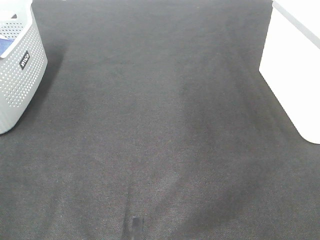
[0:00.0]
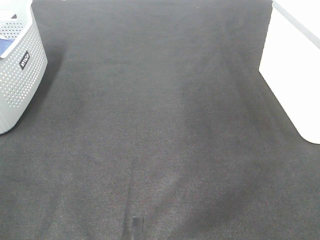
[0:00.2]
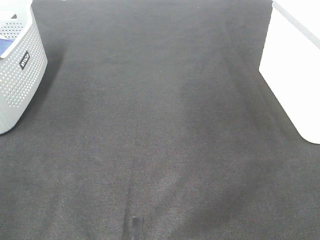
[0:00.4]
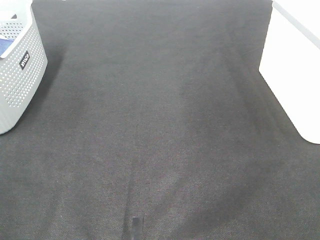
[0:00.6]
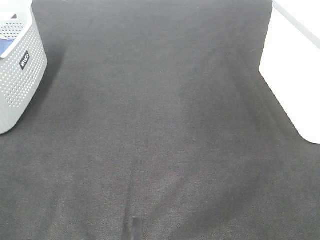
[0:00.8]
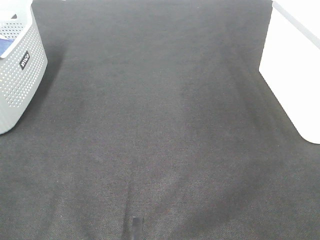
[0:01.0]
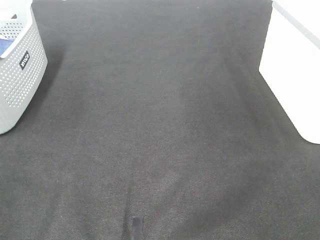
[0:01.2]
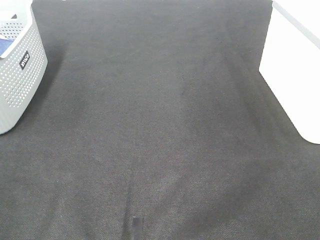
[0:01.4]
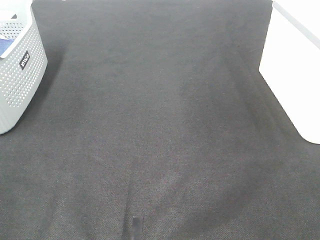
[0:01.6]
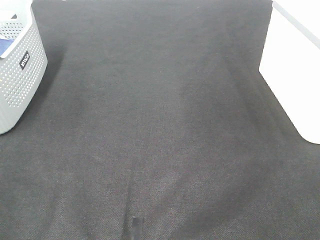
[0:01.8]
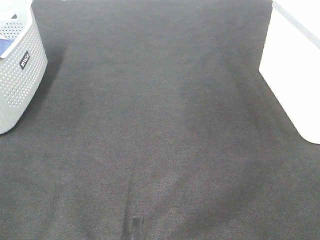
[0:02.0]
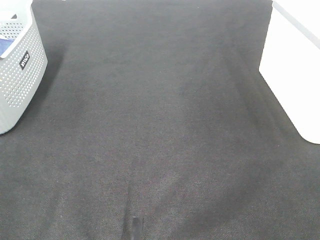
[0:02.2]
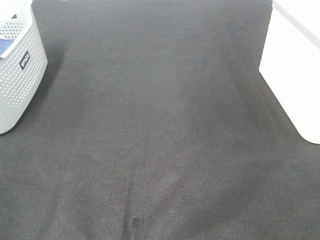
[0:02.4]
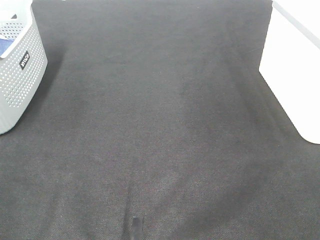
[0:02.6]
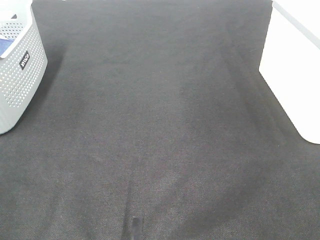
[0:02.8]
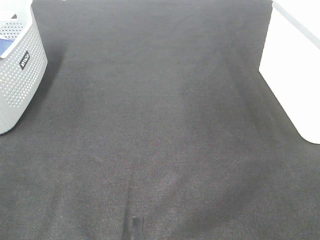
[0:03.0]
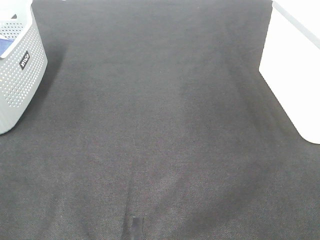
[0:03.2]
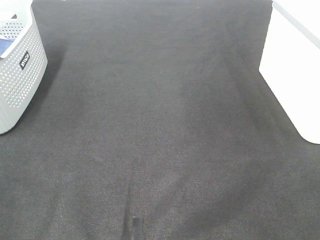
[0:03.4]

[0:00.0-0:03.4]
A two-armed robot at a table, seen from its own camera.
0:01.6 to 0:03.4: The two grippers keep their place.

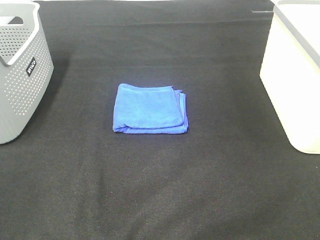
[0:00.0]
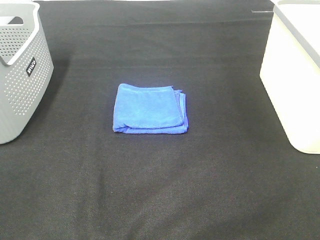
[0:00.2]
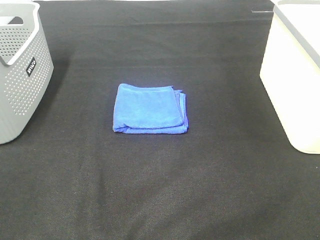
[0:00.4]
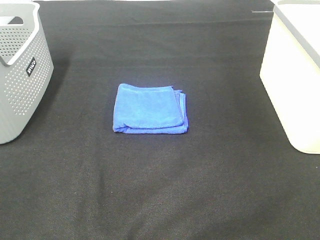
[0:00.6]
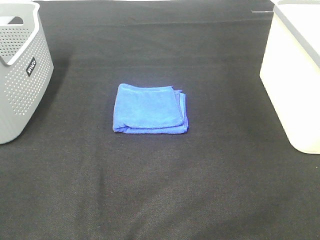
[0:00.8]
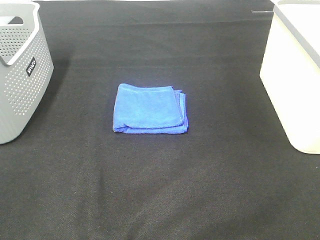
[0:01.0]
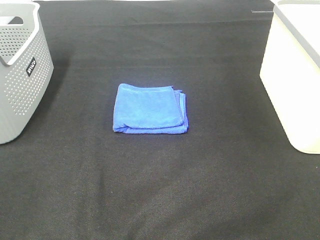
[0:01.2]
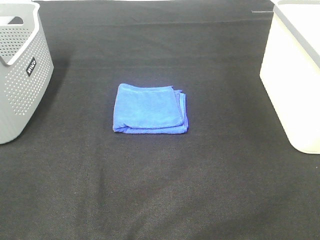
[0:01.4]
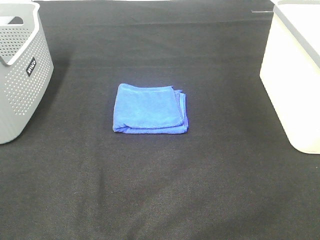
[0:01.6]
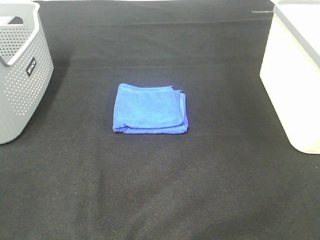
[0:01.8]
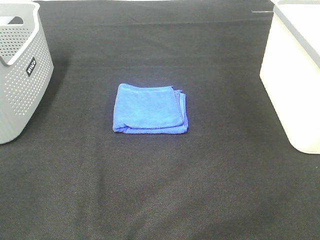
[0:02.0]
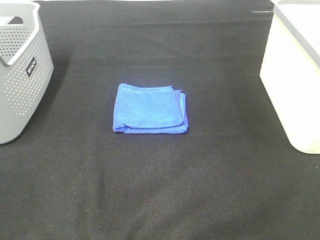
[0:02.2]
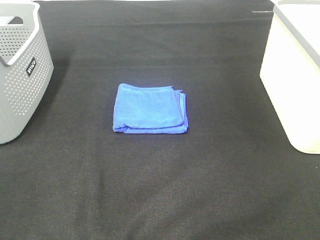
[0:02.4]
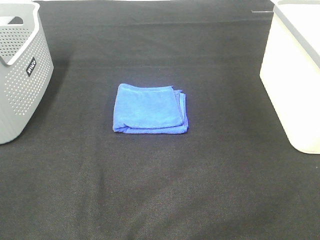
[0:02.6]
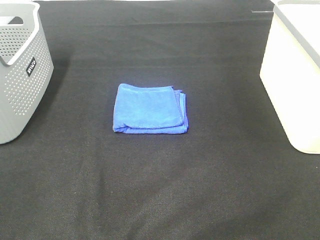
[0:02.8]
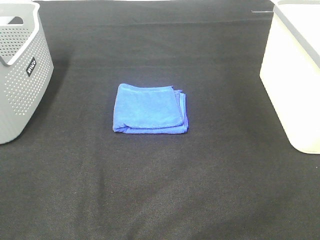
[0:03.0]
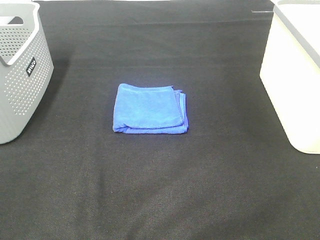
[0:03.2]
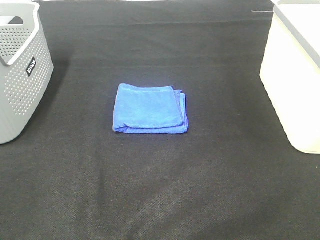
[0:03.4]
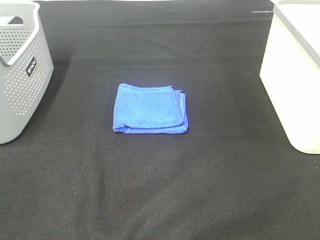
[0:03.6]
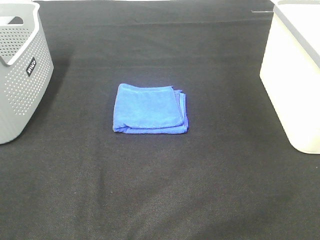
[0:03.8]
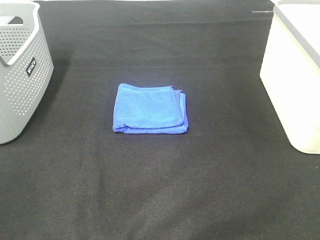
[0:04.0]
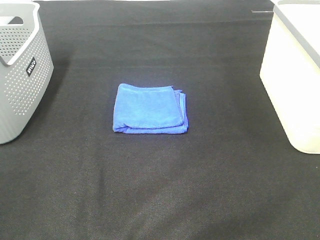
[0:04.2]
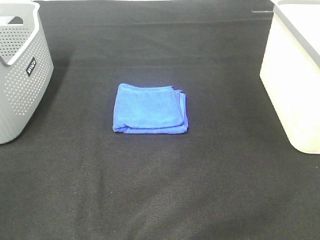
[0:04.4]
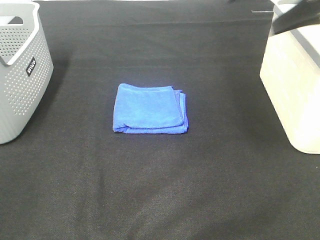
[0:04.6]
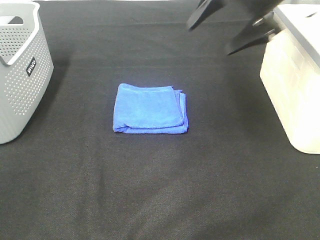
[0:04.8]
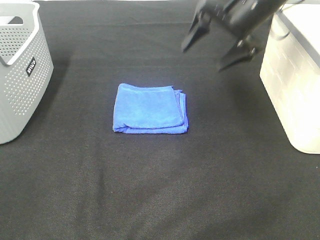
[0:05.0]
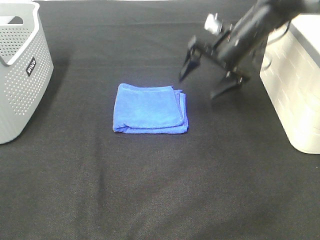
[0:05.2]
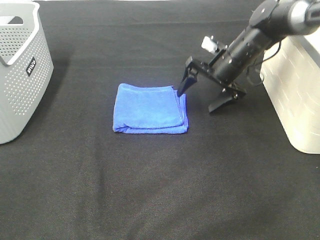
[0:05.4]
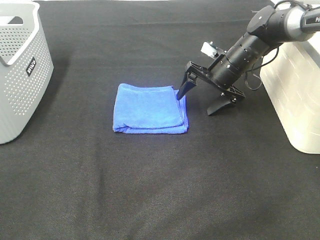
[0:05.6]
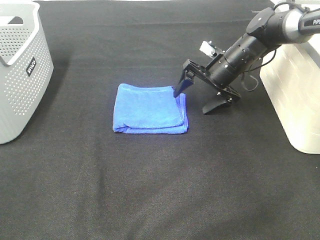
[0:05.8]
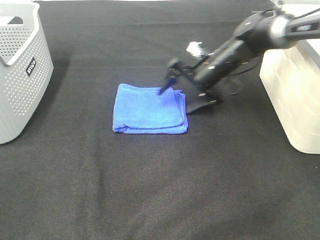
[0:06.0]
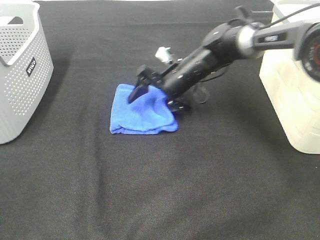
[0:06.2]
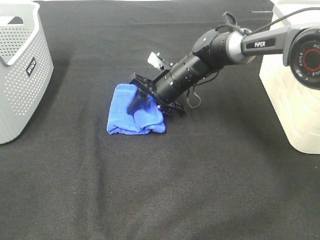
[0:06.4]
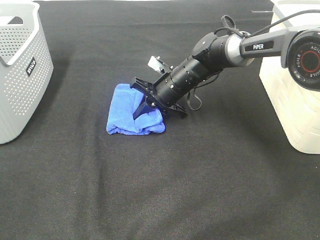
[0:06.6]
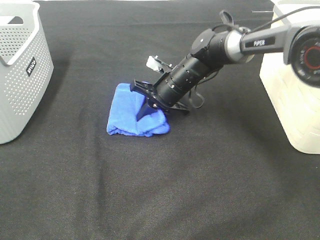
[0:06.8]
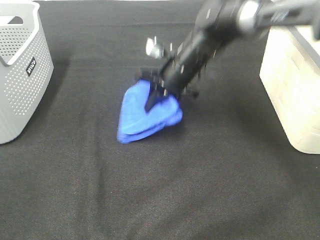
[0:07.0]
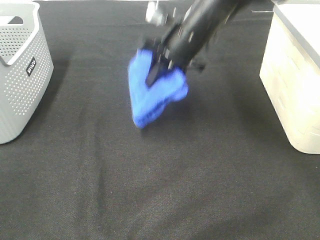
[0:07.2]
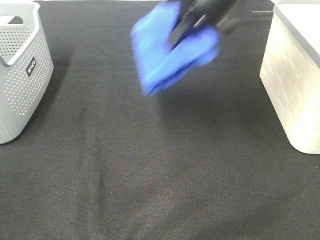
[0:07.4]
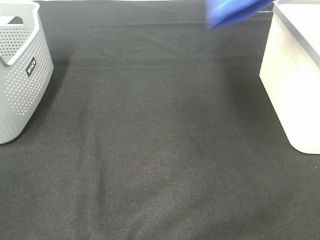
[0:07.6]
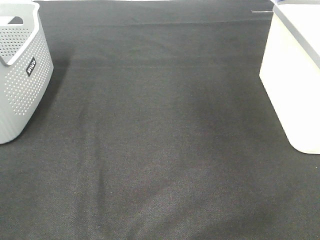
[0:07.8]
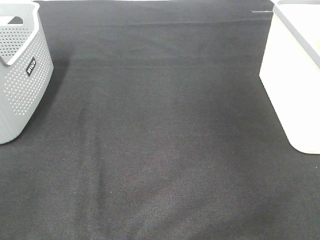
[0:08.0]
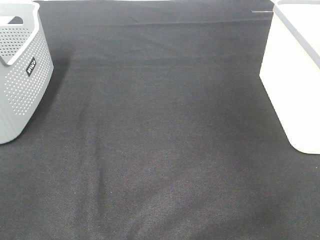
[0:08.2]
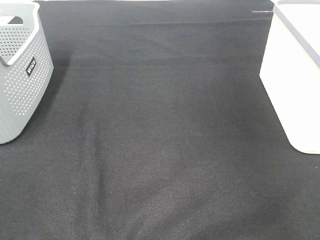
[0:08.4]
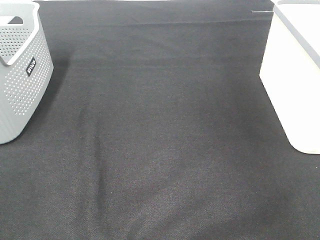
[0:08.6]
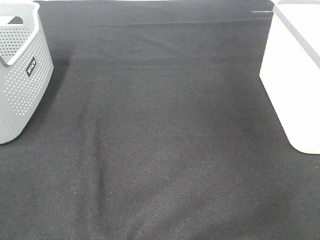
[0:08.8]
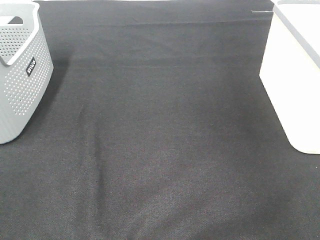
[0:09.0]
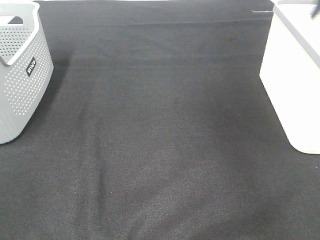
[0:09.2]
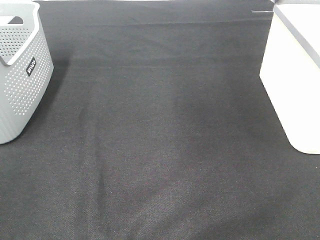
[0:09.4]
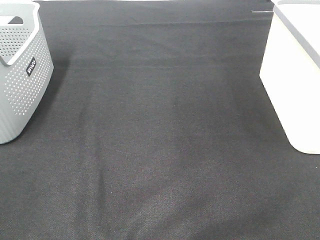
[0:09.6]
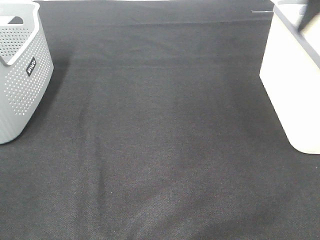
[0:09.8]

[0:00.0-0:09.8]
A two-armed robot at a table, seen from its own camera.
Step, 0:00.0 to 0:06.6: Right hand: grab the folded blue towel.
Step, 0:06.8 to 0:08.8: Right hand: place the blue towel in right basket.
0:00.0 to 0:02.8: Both grippers stay put.
0:04.2 to 0:05.6: The right gripper shifts some 40 cm downward and forward.
0:05.6 to 0:07.0: The right gripper is displaced to the left by some 10 cm, and closes.
0:07.0 to 0:08.4: The right gripper moves to the right and upward, roughly 40 cm.
0:08.4 to 0:09.8: The right gripper goes some 20 cm backward and to the left, and opens up.

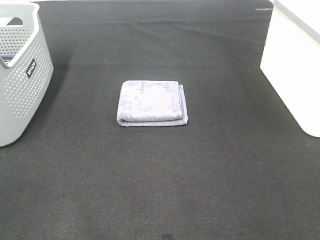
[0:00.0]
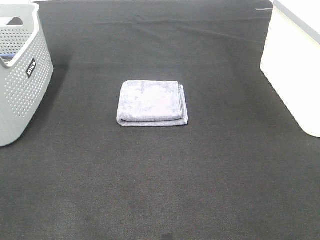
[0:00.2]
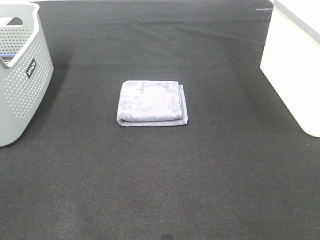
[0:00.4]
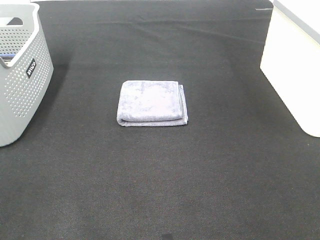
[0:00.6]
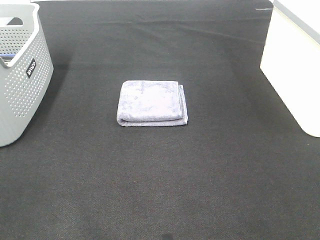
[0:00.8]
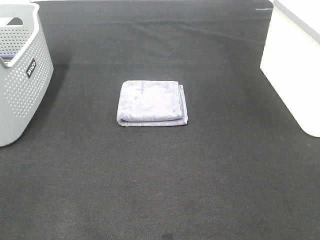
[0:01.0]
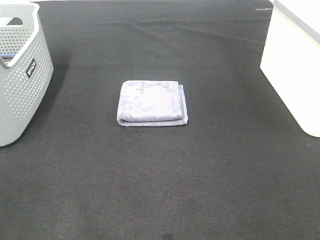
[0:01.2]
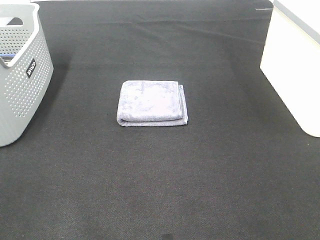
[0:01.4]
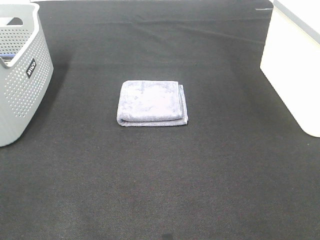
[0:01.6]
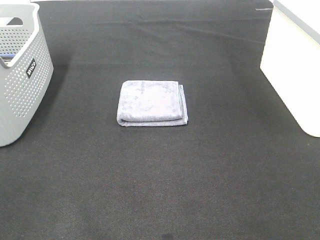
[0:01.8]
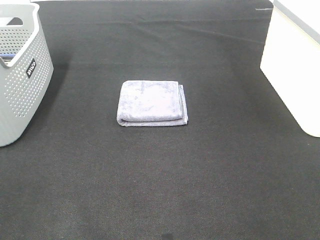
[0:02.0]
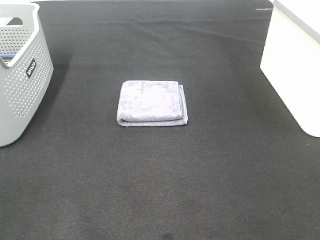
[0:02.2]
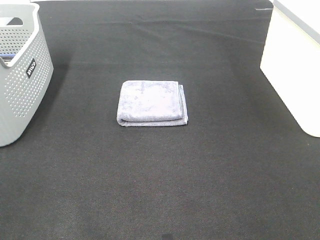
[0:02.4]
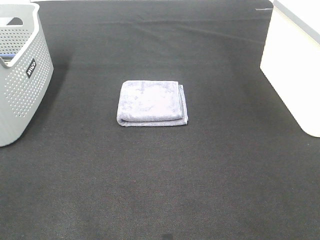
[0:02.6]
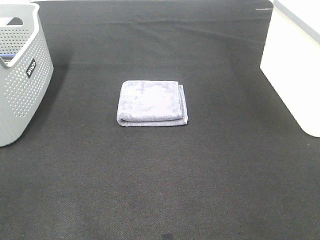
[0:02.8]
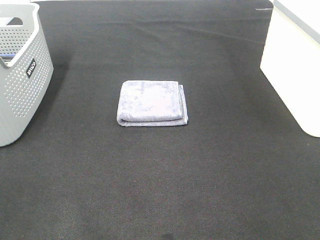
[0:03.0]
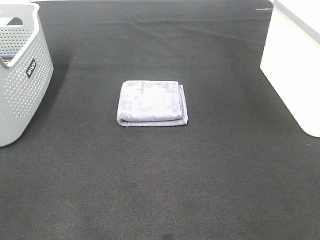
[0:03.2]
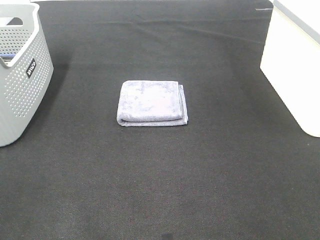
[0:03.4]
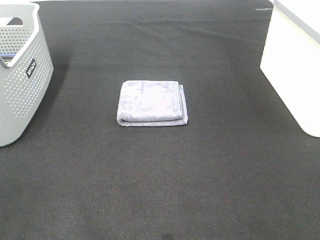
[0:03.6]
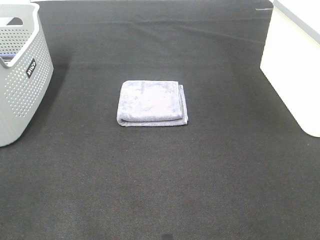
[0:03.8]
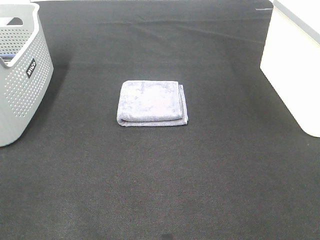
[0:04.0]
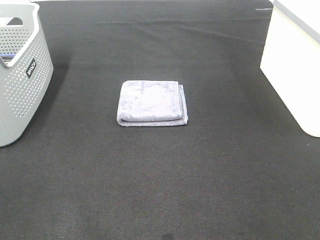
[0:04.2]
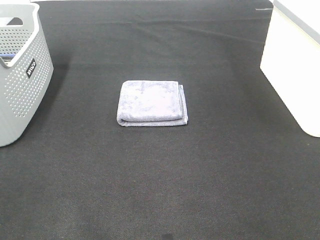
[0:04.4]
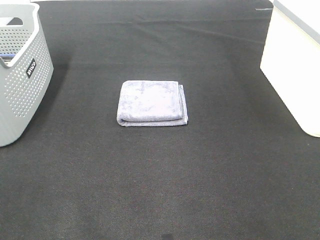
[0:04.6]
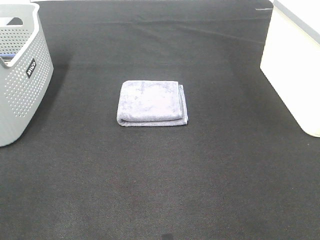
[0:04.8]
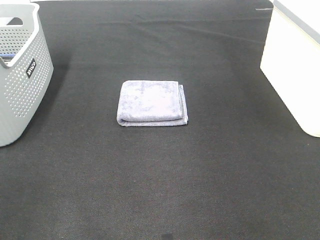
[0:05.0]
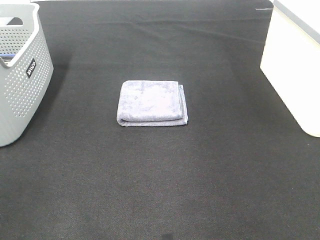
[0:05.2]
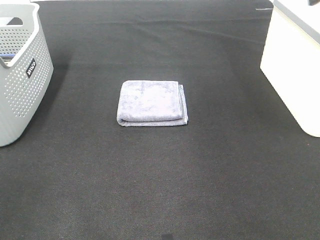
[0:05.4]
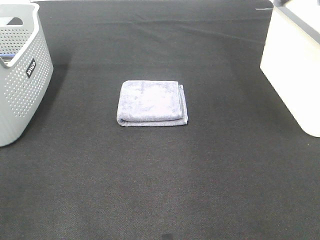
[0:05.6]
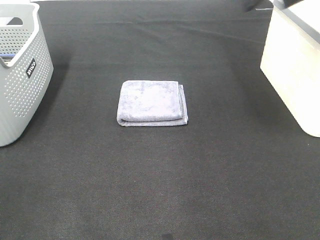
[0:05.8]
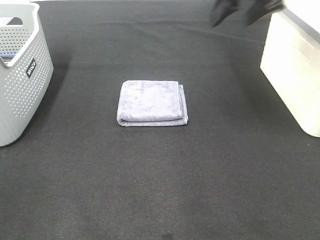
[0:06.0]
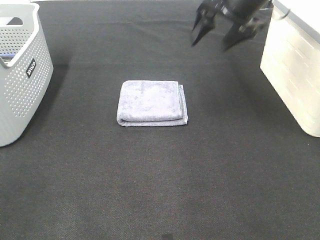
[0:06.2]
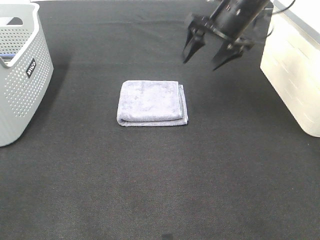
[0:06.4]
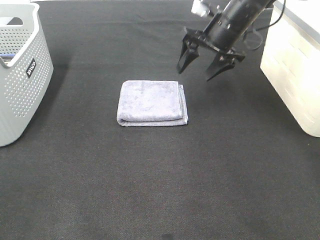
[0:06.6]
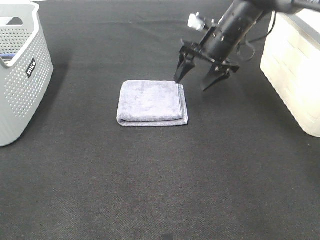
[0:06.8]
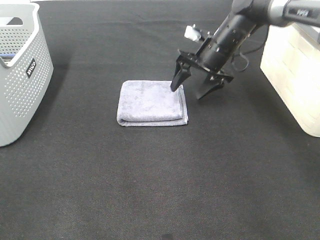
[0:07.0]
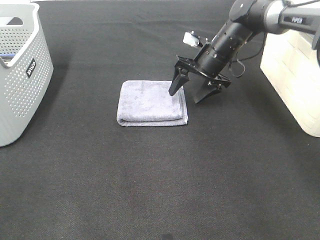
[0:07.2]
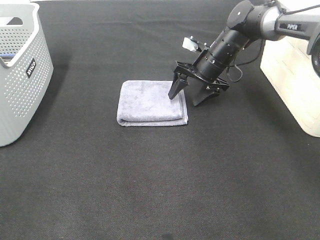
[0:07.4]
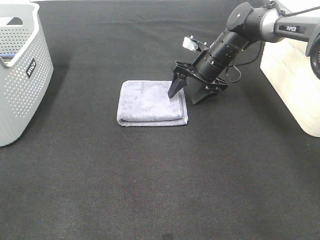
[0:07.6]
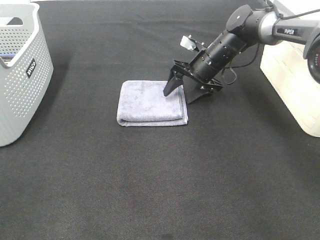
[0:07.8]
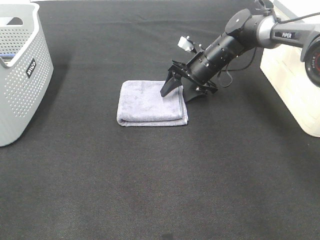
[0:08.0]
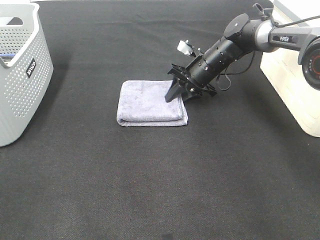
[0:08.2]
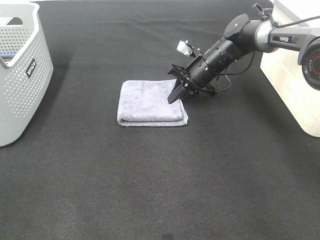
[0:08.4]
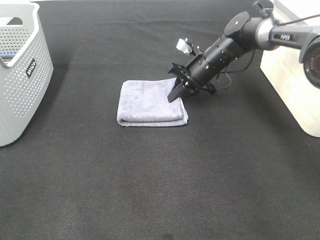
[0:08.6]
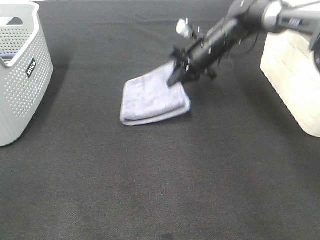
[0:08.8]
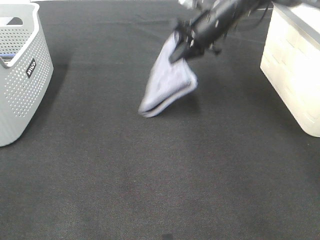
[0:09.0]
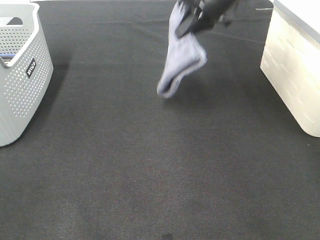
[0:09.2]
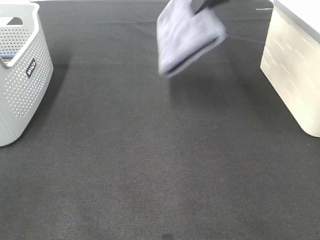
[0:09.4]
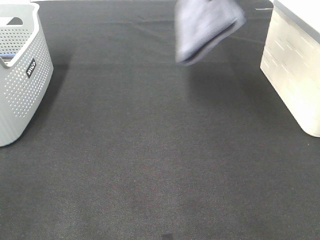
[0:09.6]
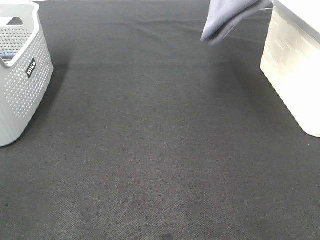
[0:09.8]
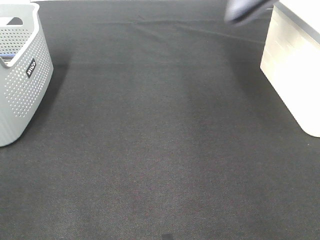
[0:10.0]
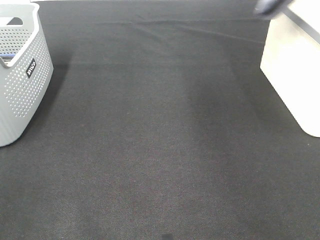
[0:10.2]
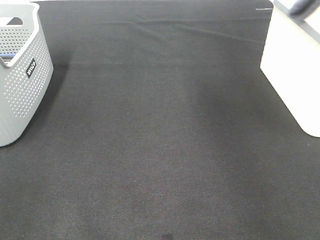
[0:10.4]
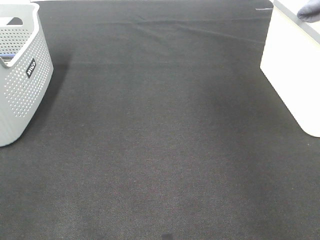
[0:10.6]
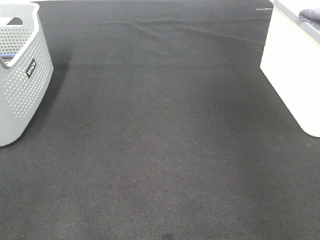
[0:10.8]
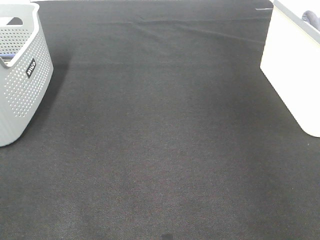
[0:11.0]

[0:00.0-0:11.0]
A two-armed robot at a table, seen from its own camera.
Step, 0:00.0 to 0:08.4: Right hand: grab the folded grey towel.
0:00.0 to 0:03.2: Both grippers stay about where they are.
0:04.8 to 0:06.2: The right gripper goes about 30 cm forward and to the left.
0:06.2 to 0:07.8: The right gripper moves downward, approximately 15 cm.
0:07.8 to 0:09.4: The right gripper travels upward by roughly 25 cm, and closes up.
0:09.4 to 0:11.0: The right gripper travels to the right by some 25 cm.
